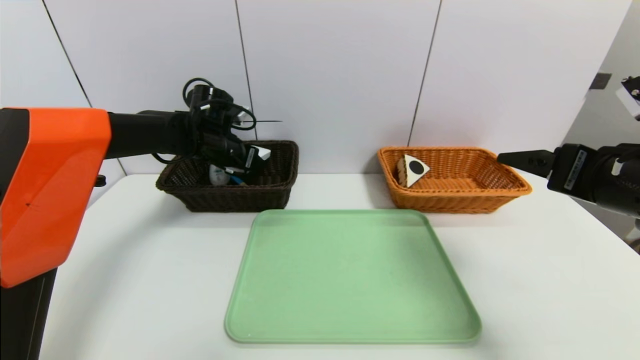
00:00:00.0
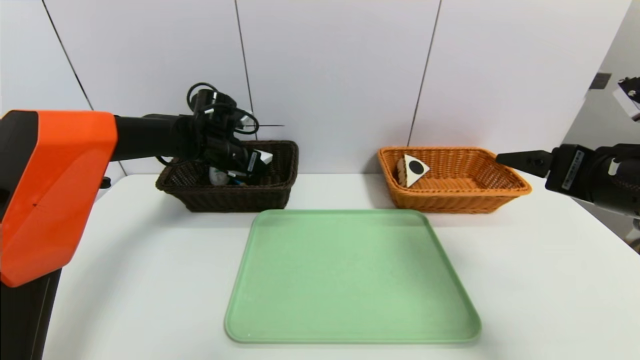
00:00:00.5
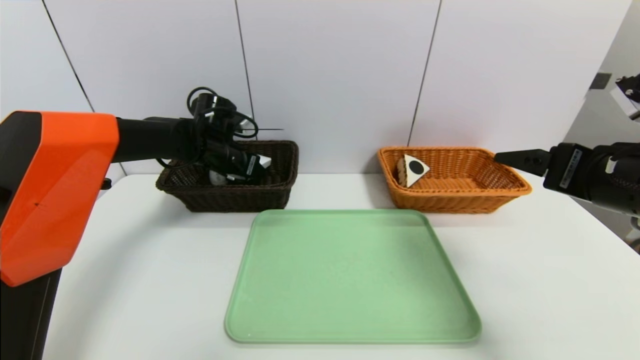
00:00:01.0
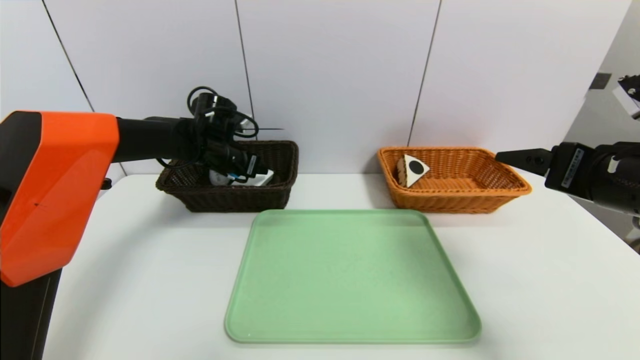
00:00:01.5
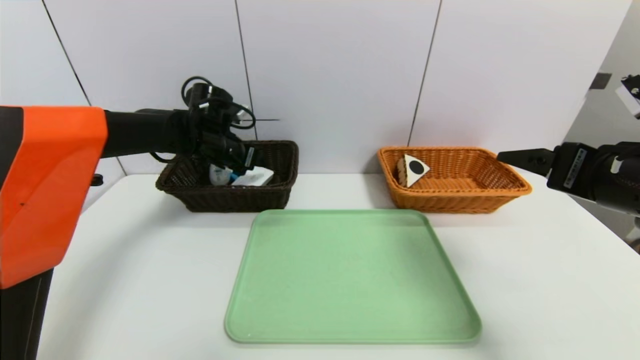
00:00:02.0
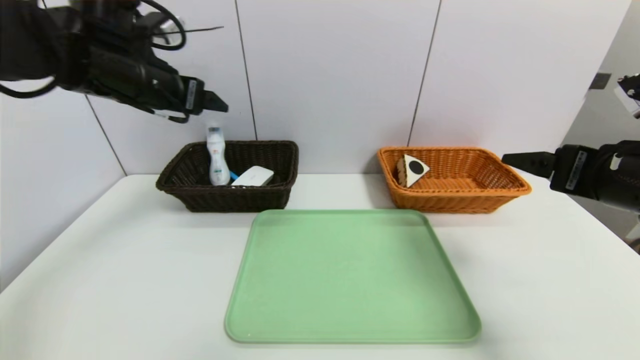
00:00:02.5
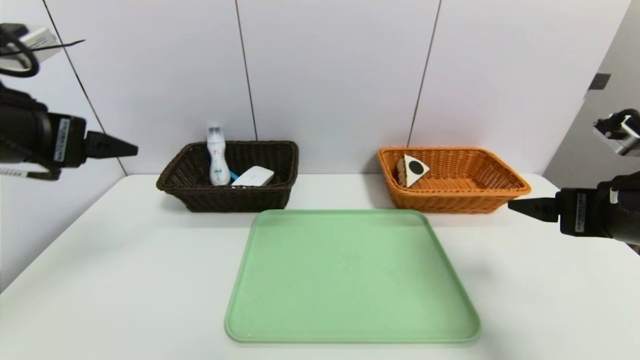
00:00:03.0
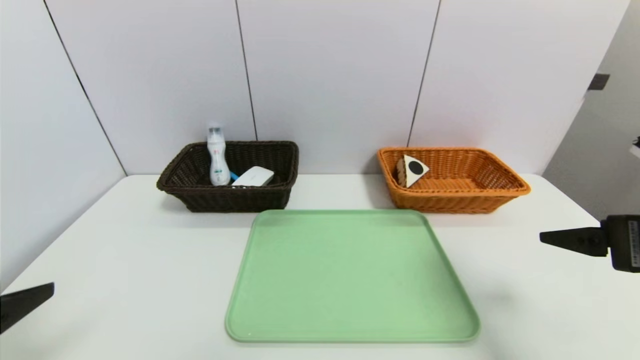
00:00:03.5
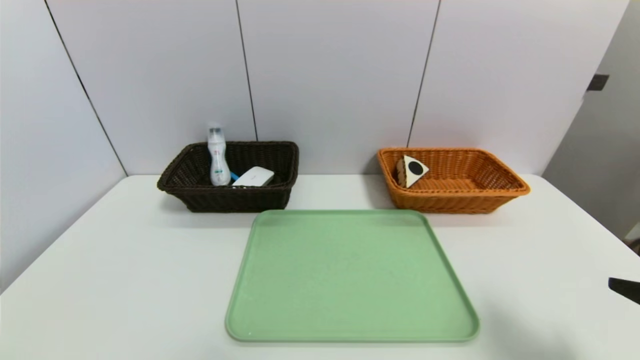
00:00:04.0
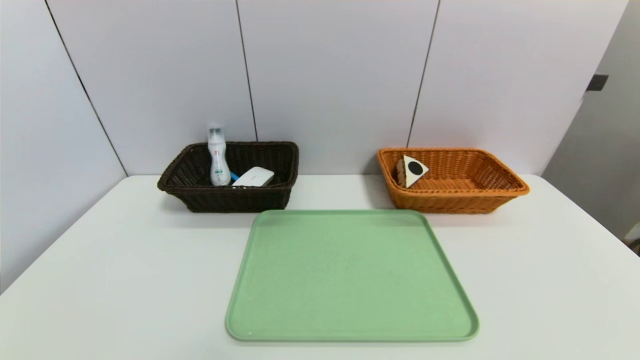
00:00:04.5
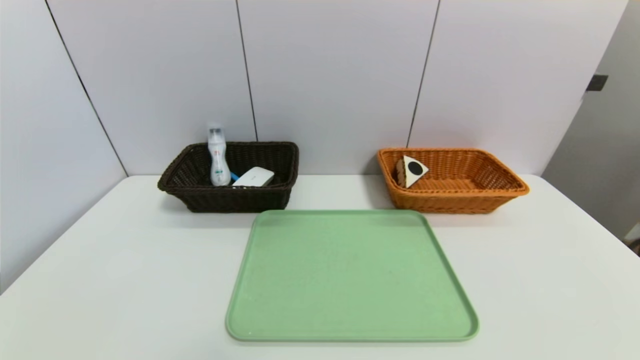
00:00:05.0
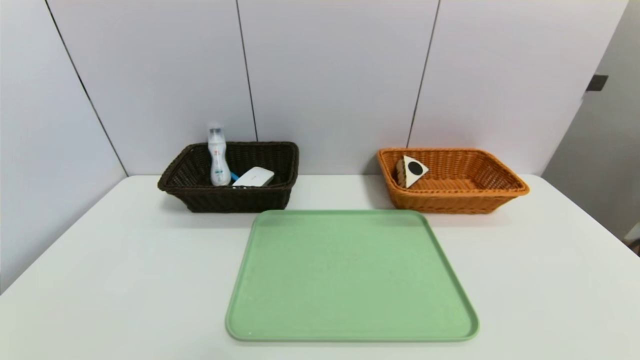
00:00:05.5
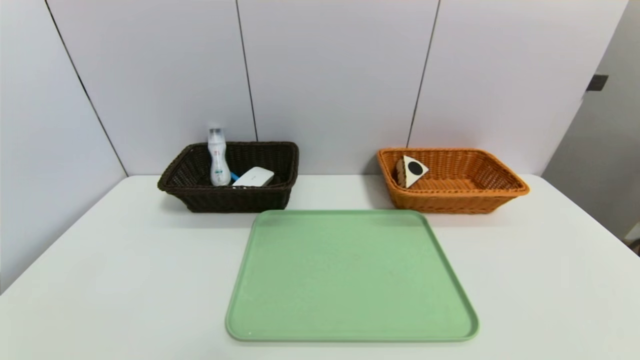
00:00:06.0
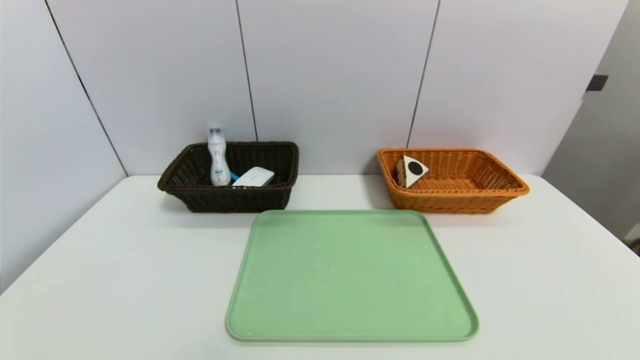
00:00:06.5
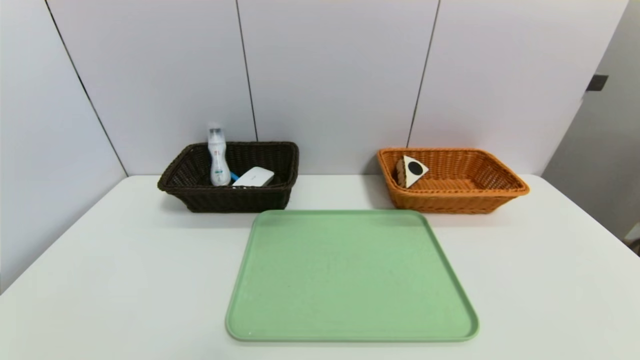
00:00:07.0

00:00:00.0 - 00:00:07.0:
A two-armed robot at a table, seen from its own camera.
Task of the whole recording: place the food in the right basket with the right gripper, and place the non food items in the left basket with the left gripper.
00:00:00.0 - 00:00:02.0: There are only small adjustments of the grippers.
00:00:02.0 - 00:00:03.5: The right gripper goes roughly 5 cm backward. The left gripper moves backward, some 40 cm.
00:00:03.5 - 00:00:05.0: The left gripper is displaced downward and backward by some 15 cm, while the right gripper is displaced backward and downward by roughly 25 cm.

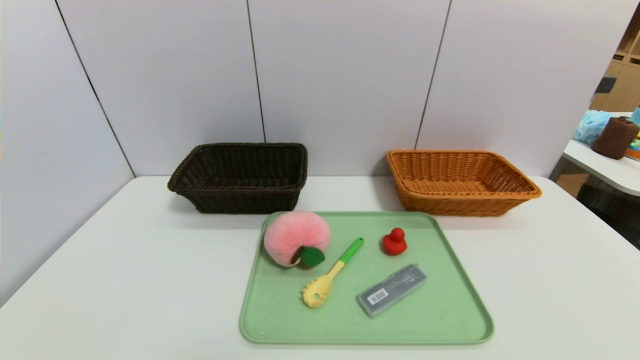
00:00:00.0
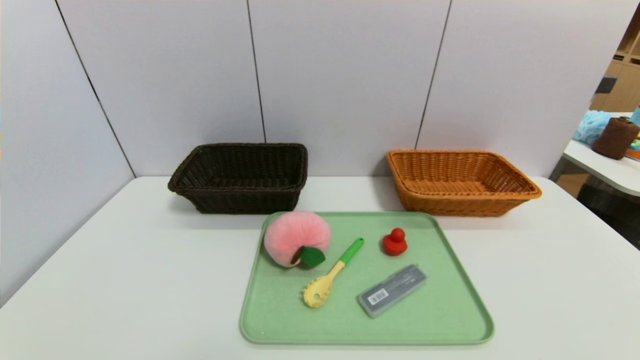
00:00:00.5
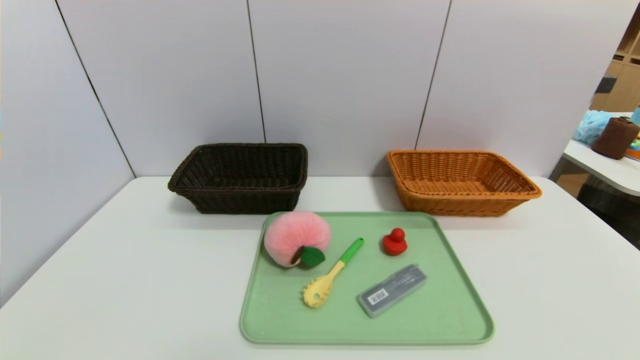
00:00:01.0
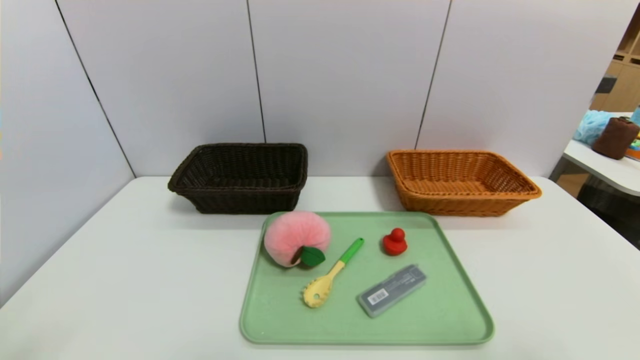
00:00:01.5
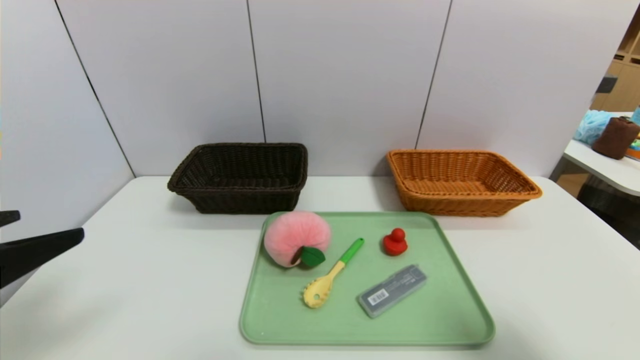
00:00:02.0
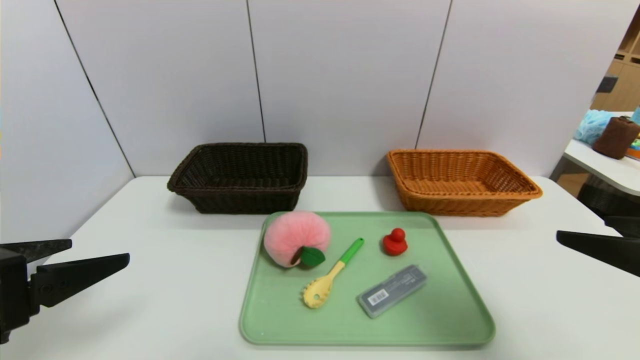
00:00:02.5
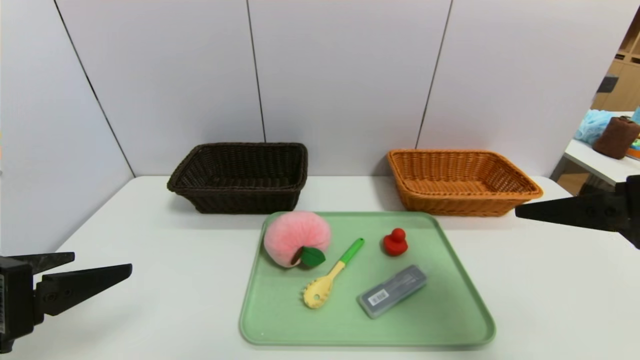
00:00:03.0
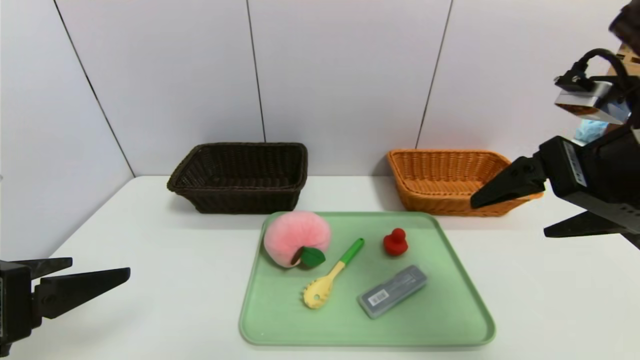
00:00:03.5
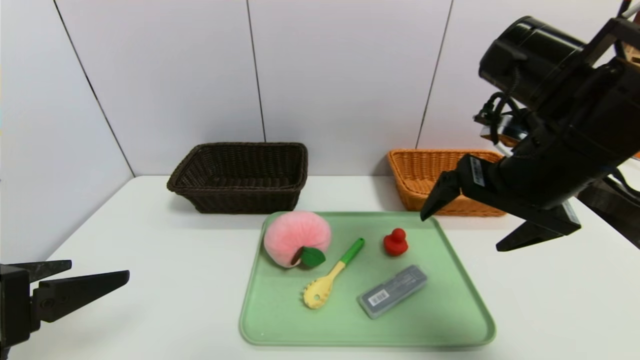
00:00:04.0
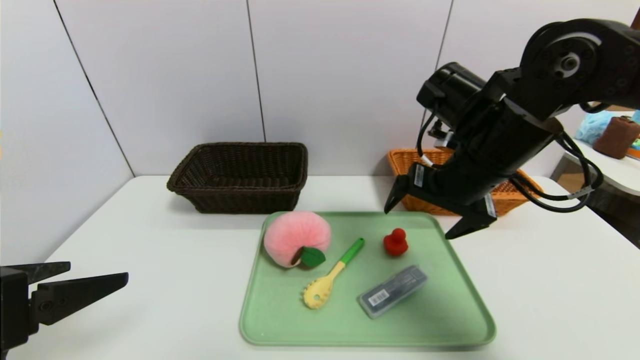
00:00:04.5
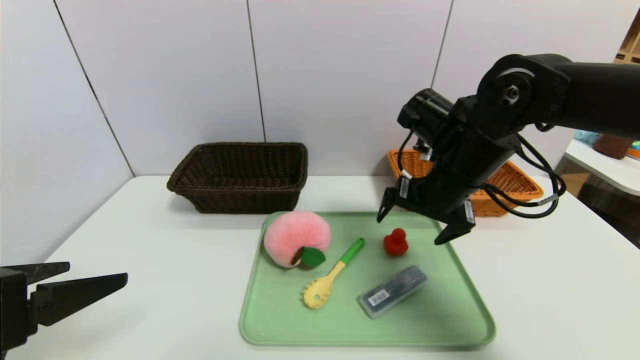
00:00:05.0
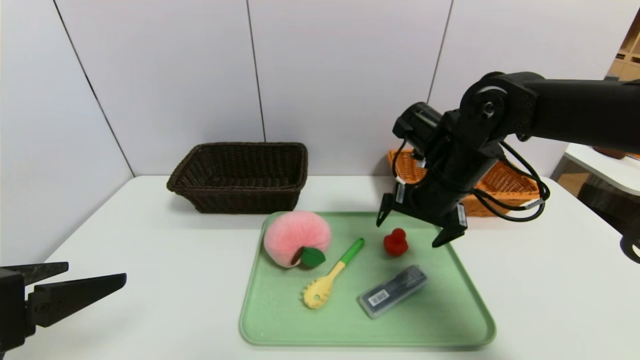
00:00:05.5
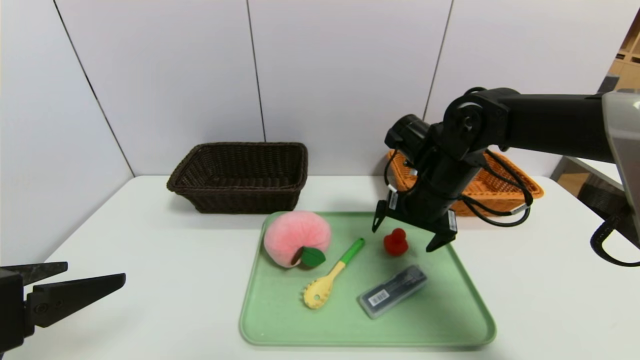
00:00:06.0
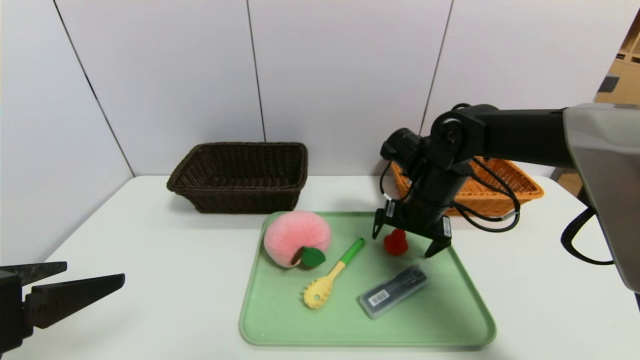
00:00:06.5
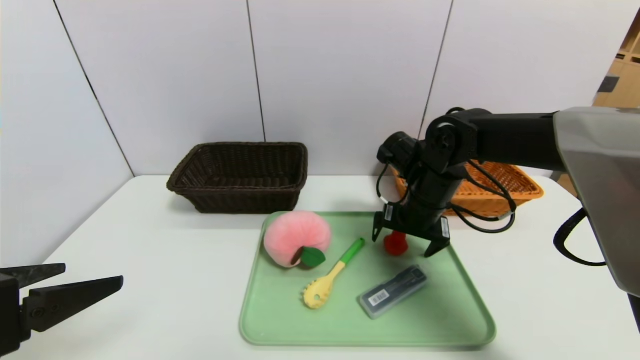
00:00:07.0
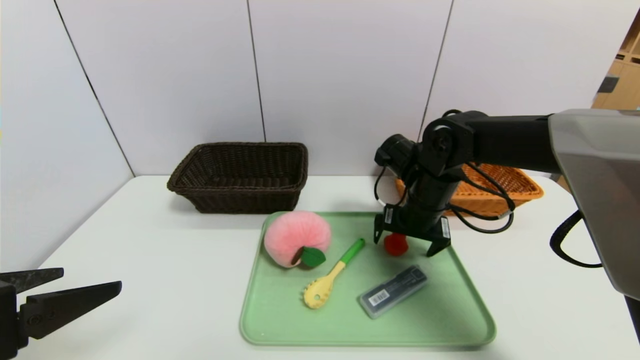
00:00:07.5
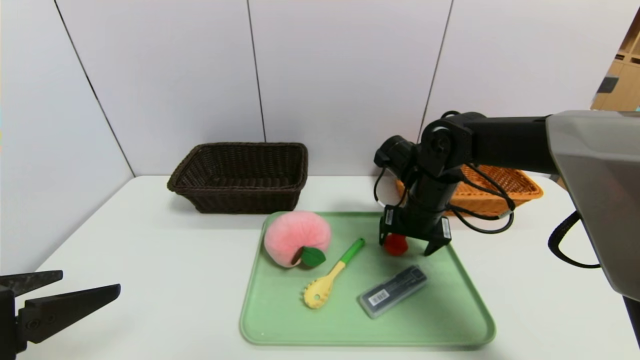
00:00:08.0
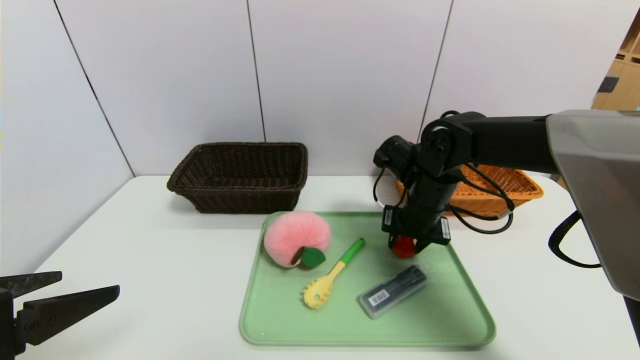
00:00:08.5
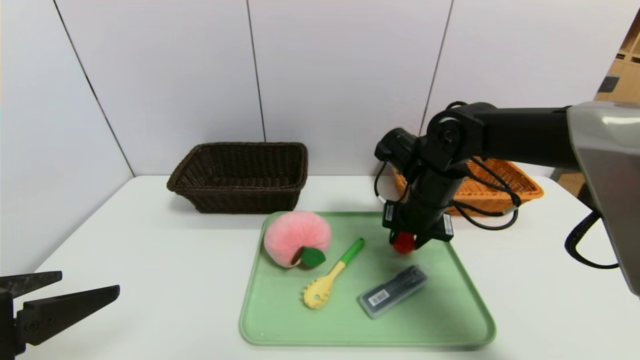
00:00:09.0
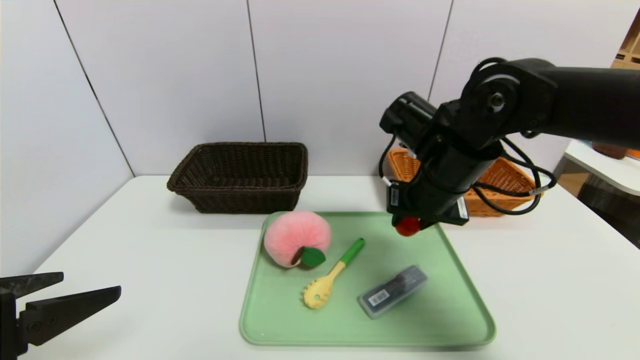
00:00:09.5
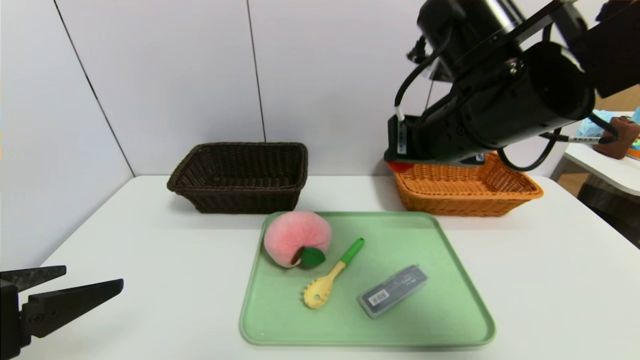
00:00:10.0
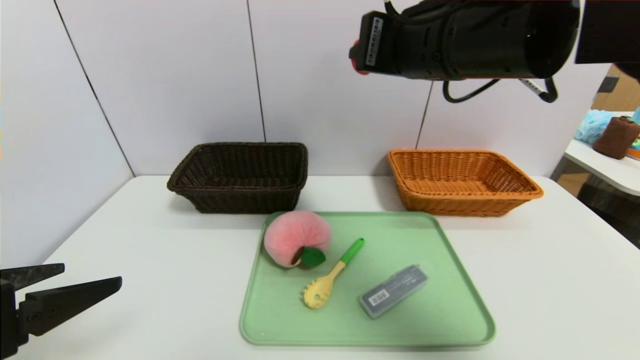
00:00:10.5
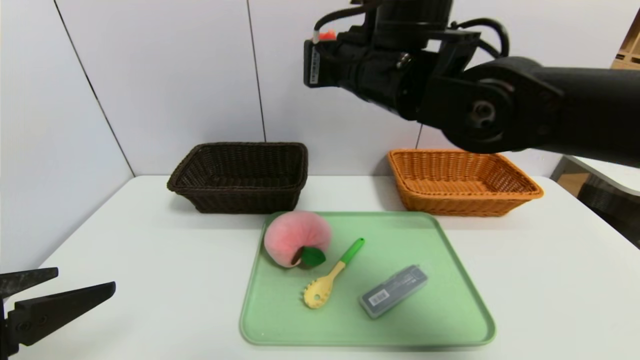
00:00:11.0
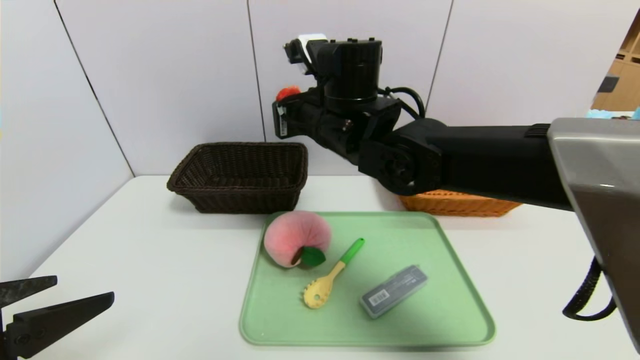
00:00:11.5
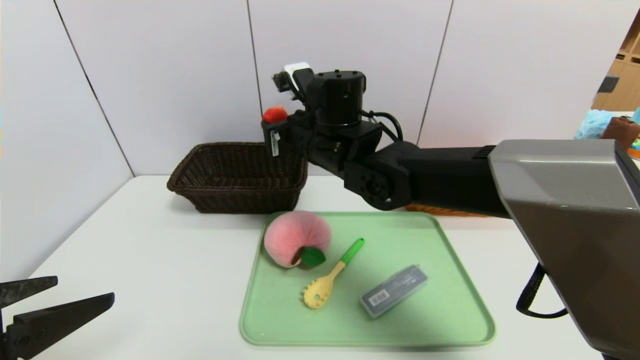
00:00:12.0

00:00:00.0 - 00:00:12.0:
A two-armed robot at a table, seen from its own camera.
Task of the whole recording: place the food in the right basket with the right gripper, and place the non food items in the left basket with the left gripper.
00:00:00.0 - 00:00:02.0: The right gripper goes approximately 20 cm upward, while the left gripper goes approximately 20 cm upward and forward.
00:00:02.0 - 00:00:04.0: The right gripper heads forward and to the left, covering about 25 cm.
00:00:04.0 - 00:00:06.0: The right gripper goes some 15 cm downward and forward.
00:00:06.0 - 00:00:08.0: The grippers stay close to where they were, moving slightly.
00:00:08.0 - 00:00:10.0: The right gripper travels upward and backward by approximately 20 cm, and closes up.
00:00:10.0 - 00:00:12.0: The right gripper moves to the left, forward and downward, approximately 20 cm.

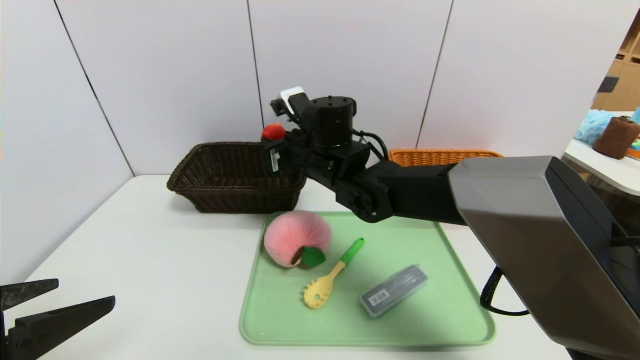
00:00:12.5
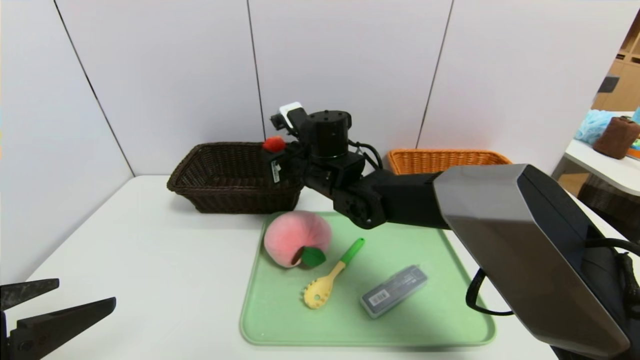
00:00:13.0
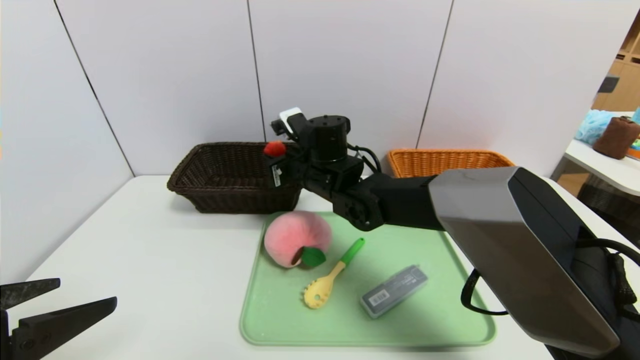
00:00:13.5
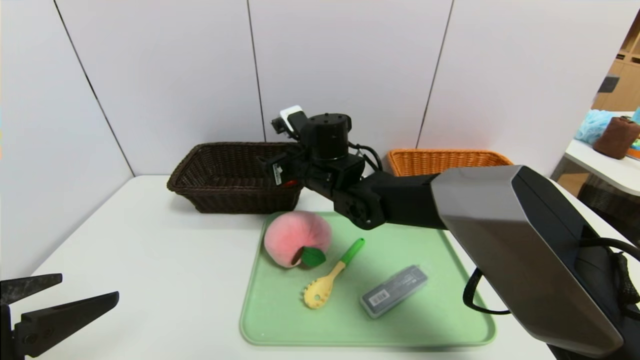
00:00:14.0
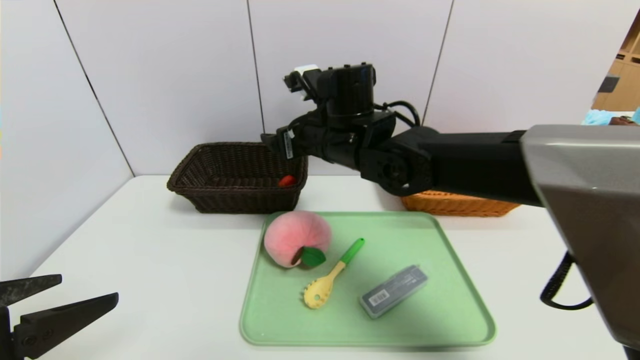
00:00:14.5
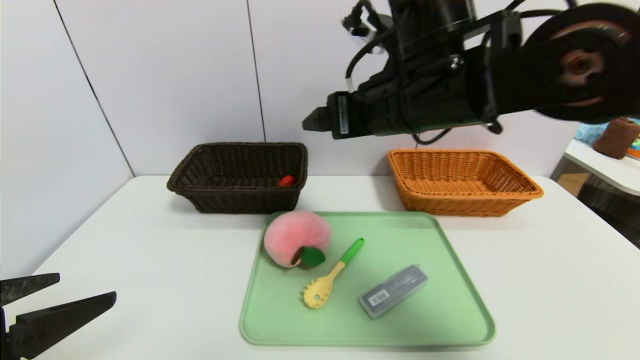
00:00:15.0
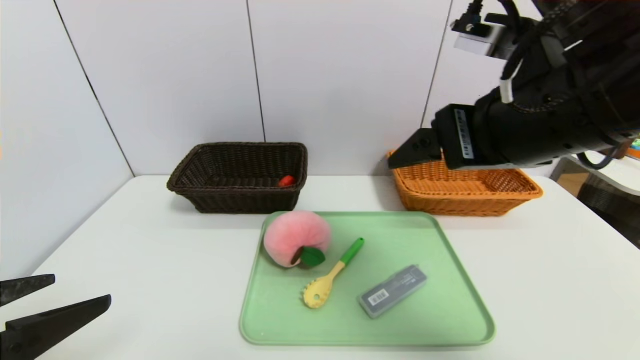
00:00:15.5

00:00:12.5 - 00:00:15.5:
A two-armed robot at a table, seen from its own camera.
Task of the whole recording: place the food in the right basket with the right gripper, and place the non food items in the left basket with the left gripper.
00:00:12.5 - 00:00:14.0: The right gripper opens its fingers.
00:00:14.0 - 00:00:15.5: The right gripper goes some 30 cm backward, to the right and upward.
